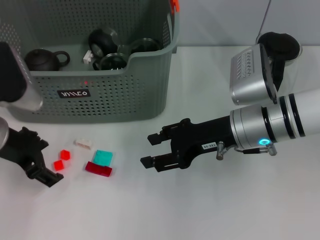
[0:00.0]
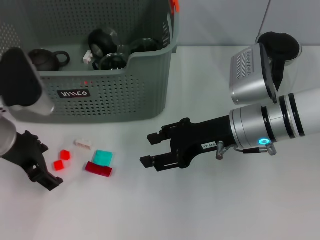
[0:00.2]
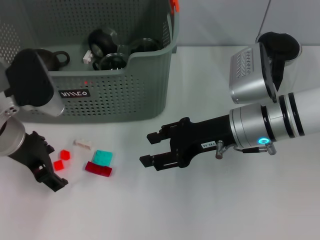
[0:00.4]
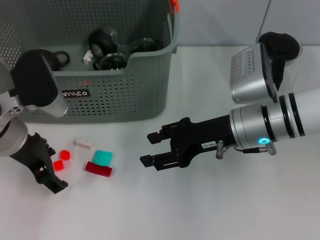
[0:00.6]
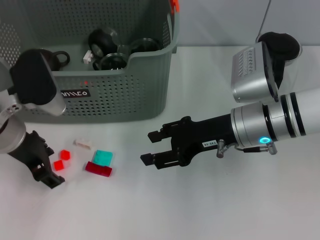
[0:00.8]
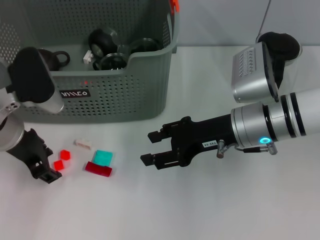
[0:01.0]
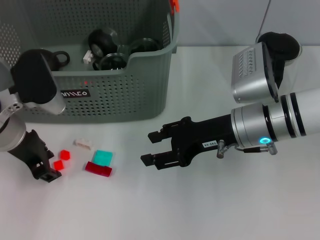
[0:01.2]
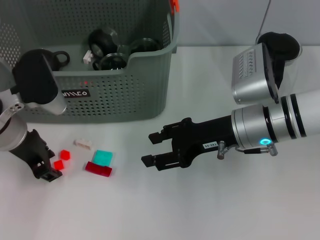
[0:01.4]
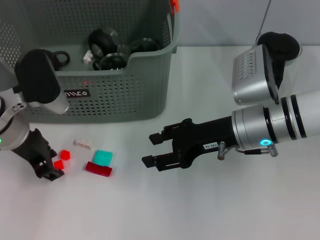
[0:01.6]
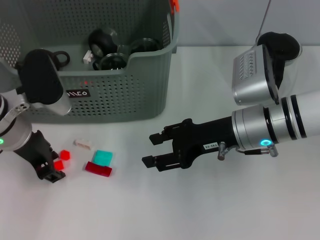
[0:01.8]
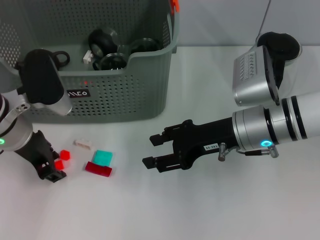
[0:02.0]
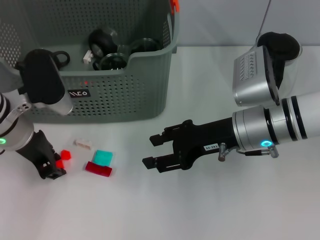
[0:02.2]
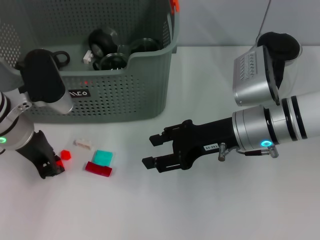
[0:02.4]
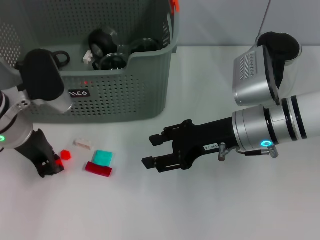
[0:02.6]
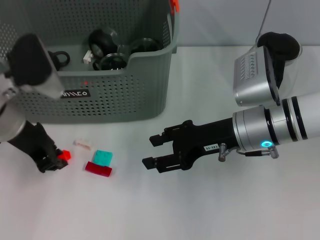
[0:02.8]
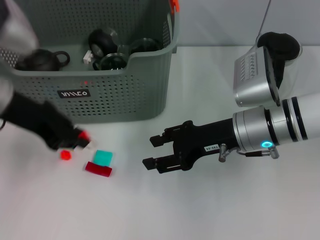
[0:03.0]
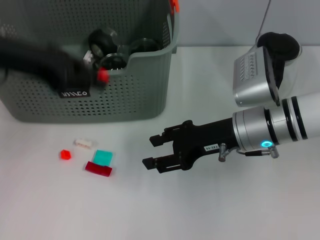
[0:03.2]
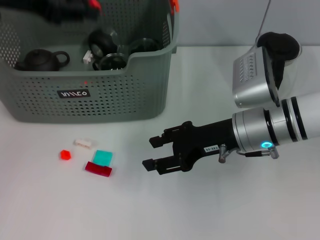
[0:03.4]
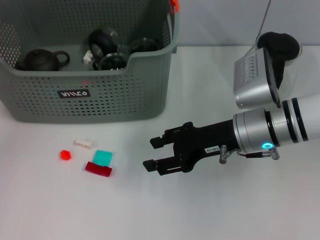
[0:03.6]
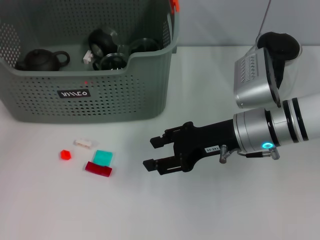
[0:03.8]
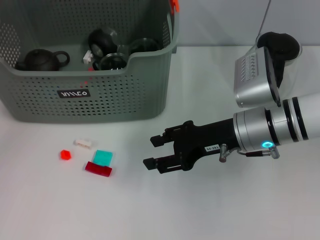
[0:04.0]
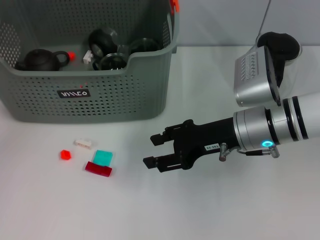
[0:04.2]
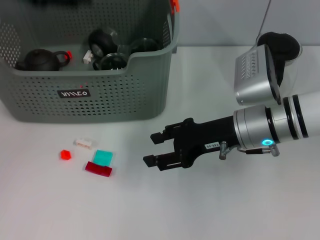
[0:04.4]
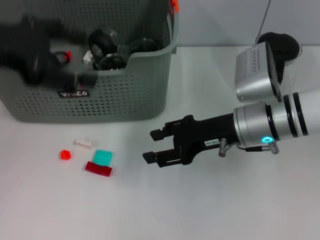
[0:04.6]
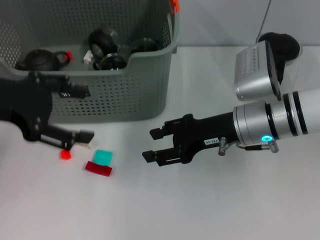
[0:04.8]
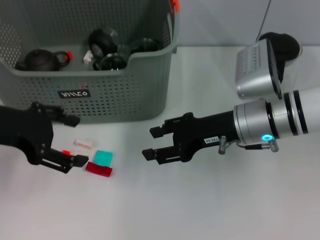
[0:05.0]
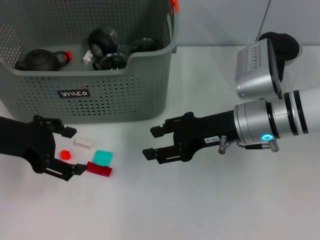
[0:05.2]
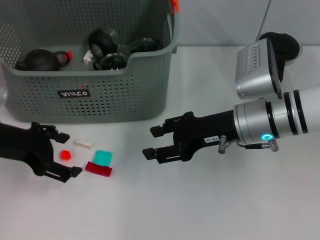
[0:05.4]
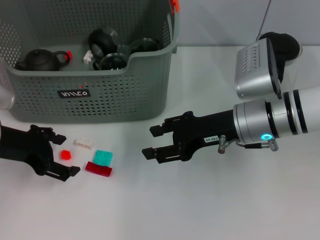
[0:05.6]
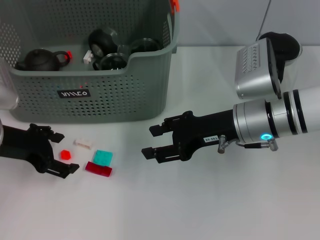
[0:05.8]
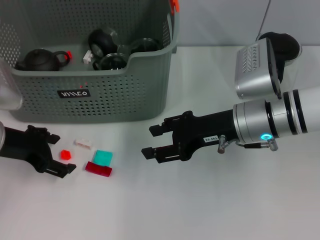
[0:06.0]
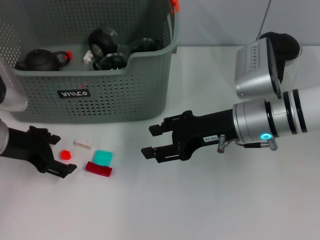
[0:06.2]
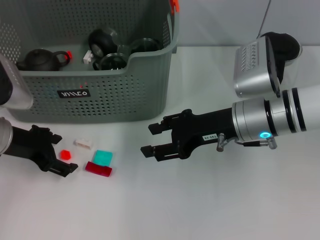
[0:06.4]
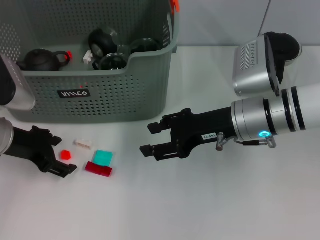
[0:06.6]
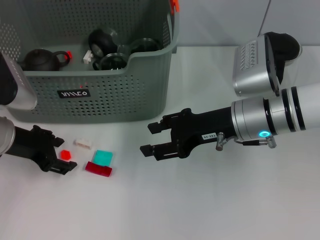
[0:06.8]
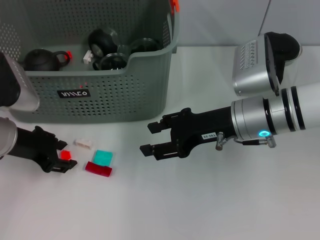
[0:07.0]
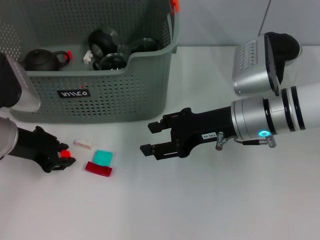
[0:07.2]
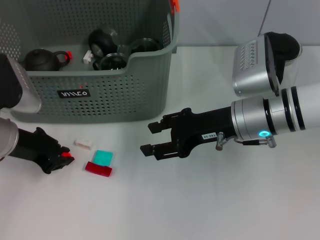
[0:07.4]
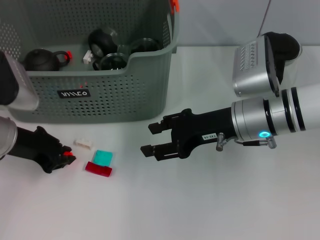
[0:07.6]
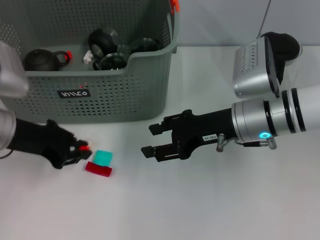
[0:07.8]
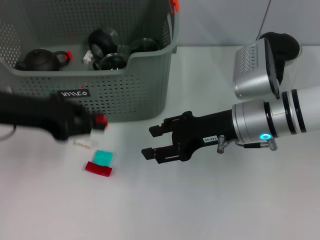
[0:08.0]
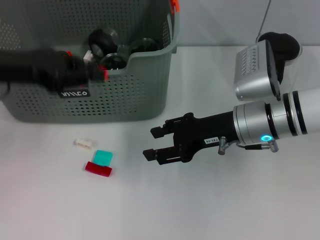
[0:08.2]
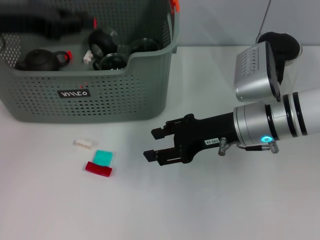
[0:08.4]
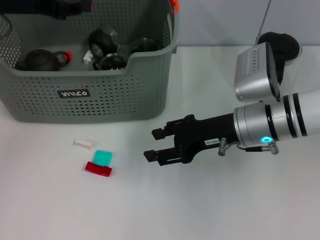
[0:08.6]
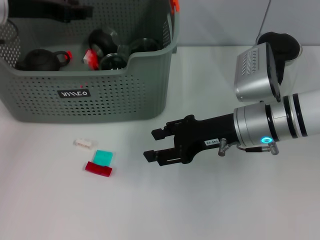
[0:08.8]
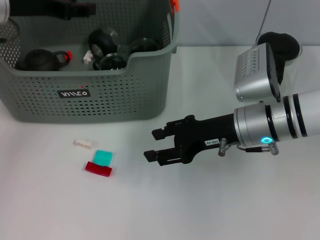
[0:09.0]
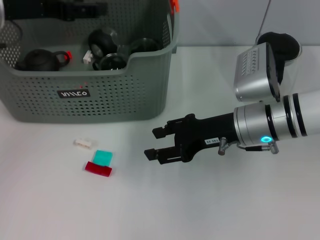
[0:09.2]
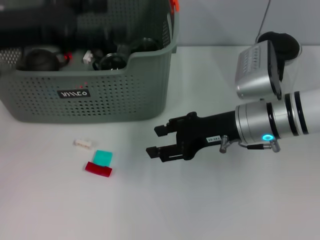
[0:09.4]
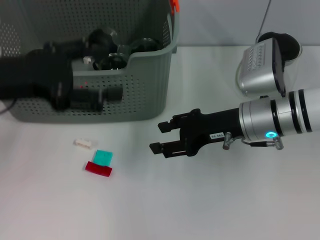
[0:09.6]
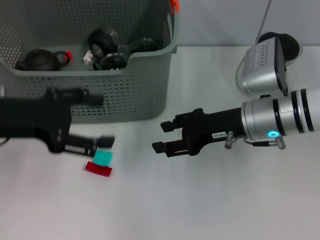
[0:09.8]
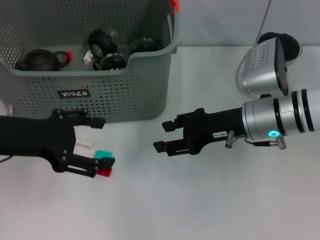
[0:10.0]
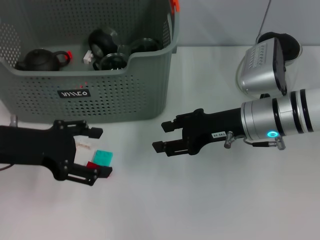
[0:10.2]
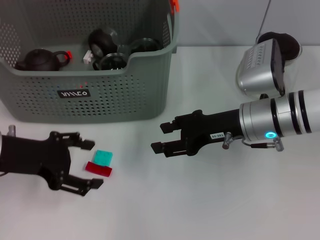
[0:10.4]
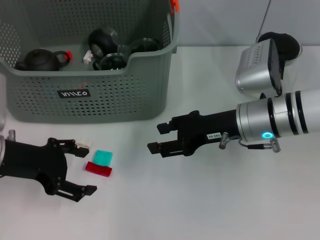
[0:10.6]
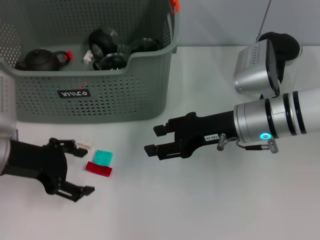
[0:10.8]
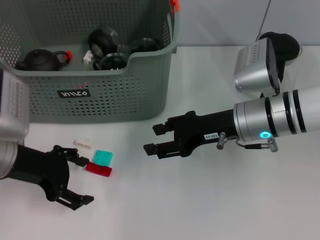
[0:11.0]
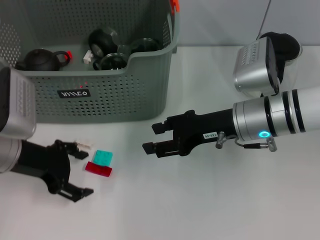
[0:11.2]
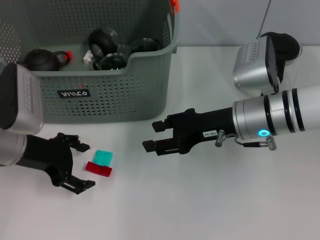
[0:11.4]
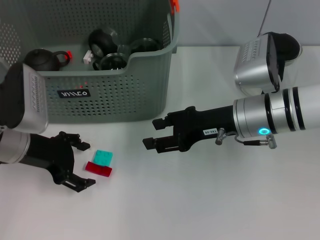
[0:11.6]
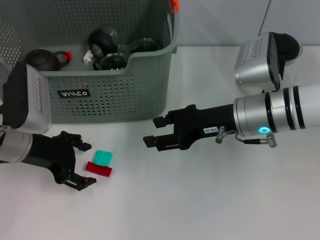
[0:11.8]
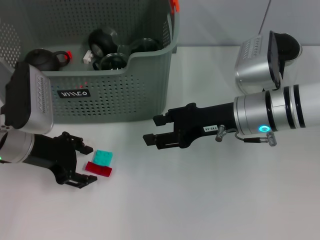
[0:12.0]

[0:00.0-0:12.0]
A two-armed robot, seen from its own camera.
Task of the whole recording: pick up the teacup on the table and place it into the storage bin, pick up the block on the table and place it into the storage bin.
Step, 0:00.0 to 0:02.4: Grasp the orange block with left gripper.
Step, 0:02.6 to 0:04.0: Place the orange block in the storage box with left gripper.
Step, 0:04.4 to 0:07.4: Grasp the orange block with left gripper.
Step, 0:07.6 to 0:09.0: Place the orange block in the storage box with left gripper.
0:00.0 to 0:01.6: The left gripper closes.
0:01.6 to 0:03.0: The left gripper goes some 10 cm upward, and closes.
0:03.0 to 0:04.4: The left gripper shifts about 10 cm upward, and opens up.
0:04.4 to 0:06.0: The left gripper shifts roughly 15 cm downward.
0:06.0 to 0:07.6: The left gripper closes.
0:07.6 to 0:09.0: The left gripper travels upward and forward by roughly 15 cm.
0:09.0 to 0:10.4: The left gripper heads backward and downward, covering about 15 cm, and opens its fingers.
0:10.4 to 0:12.0: The left gripper ends up about 5 cm from where it was.

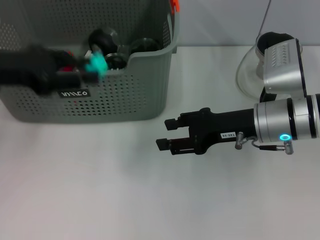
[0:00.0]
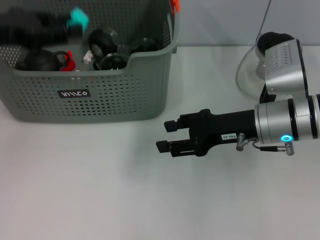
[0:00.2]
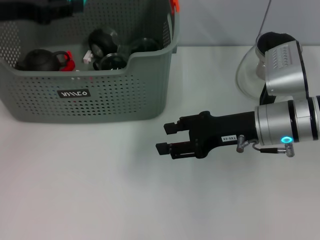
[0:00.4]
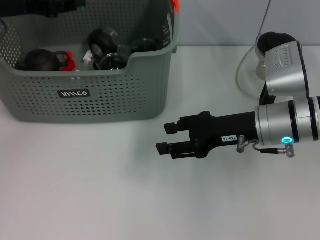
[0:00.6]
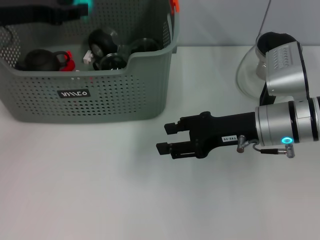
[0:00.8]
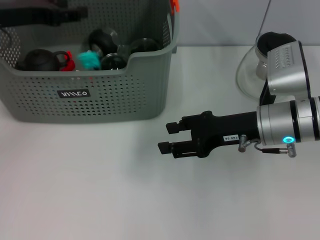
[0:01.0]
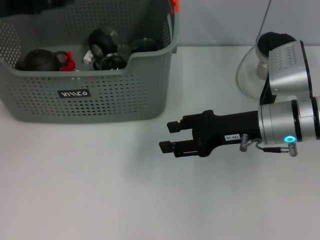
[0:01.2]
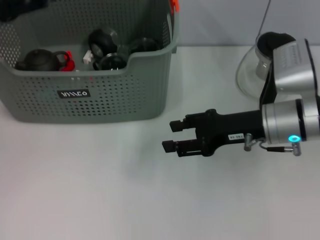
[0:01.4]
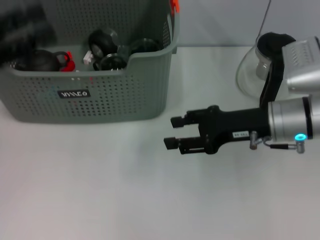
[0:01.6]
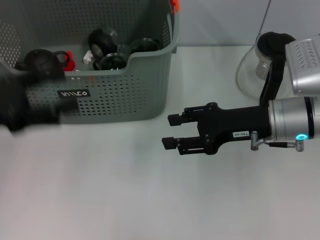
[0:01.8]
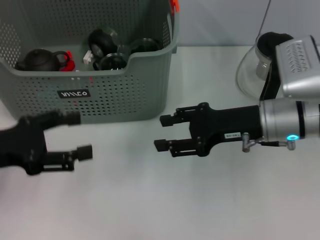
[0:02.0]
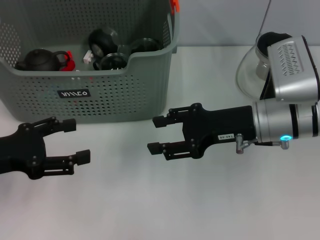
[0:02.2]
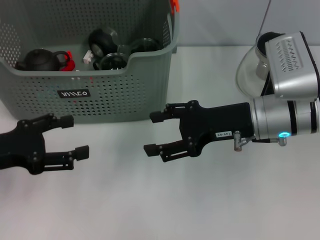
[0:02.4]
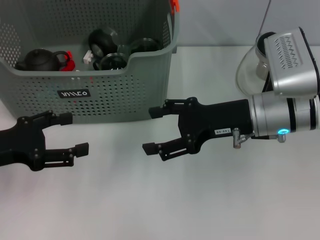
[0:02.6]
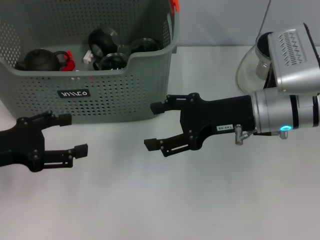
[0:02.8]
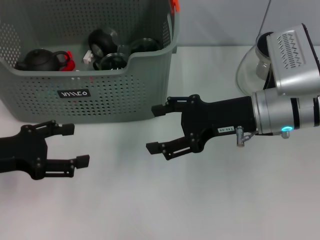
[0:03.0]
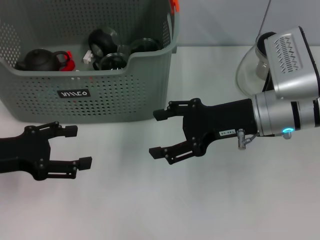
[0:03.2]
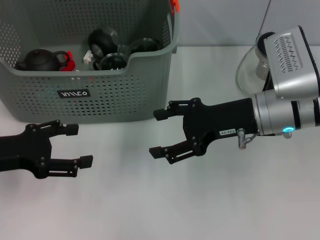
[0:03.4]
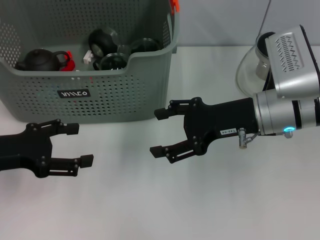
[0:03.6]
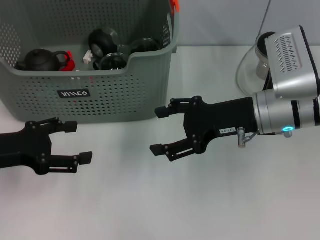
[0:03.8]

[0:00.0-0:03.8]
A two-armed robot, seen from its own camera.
Task of the whole recording: pick up the teacup on the table and place it into the storage bin, pick up the block on the table and place it into the storage bin.
Step, 0:00.0 to 0:01.0: Place the light blue block in the storage box with left gripper.
0:00.0 to 0:01.2: The left gripper shifts approximately 5 cm forward.
0:01.2 to 0:02.6: The left gripper shifts approximately 15 cm backward and downward.
0:02.6 to 0:03.8: The grippers move only a little.

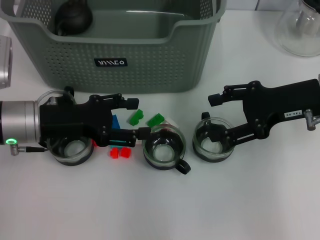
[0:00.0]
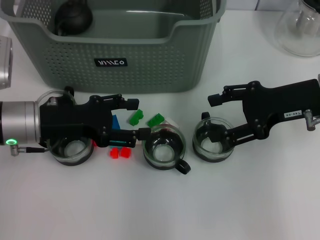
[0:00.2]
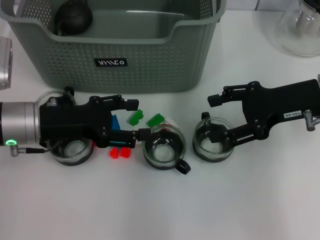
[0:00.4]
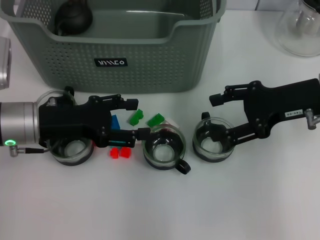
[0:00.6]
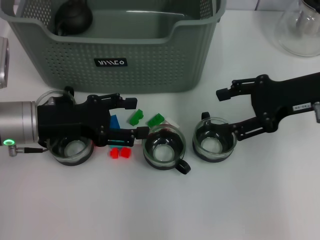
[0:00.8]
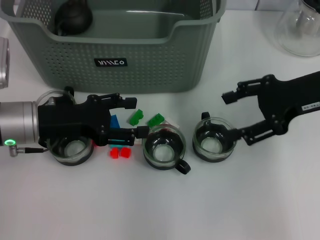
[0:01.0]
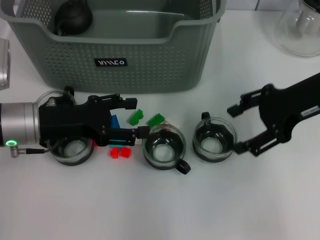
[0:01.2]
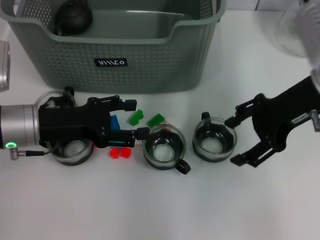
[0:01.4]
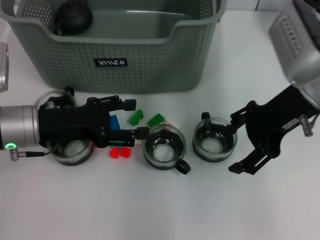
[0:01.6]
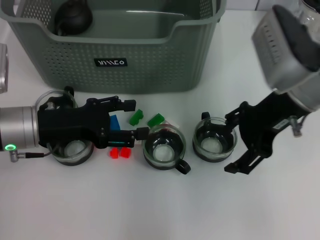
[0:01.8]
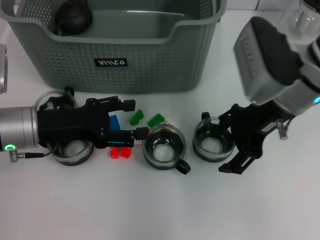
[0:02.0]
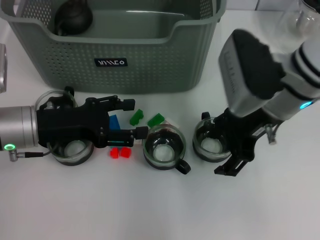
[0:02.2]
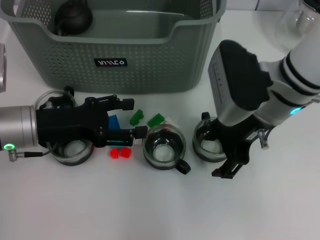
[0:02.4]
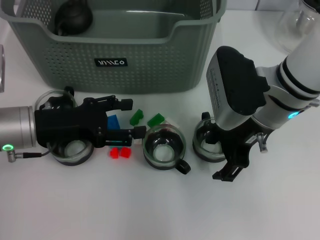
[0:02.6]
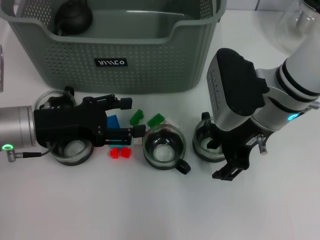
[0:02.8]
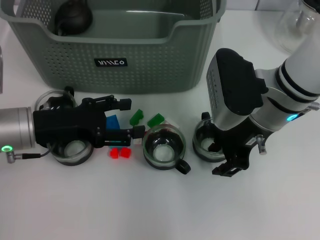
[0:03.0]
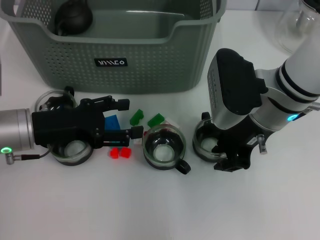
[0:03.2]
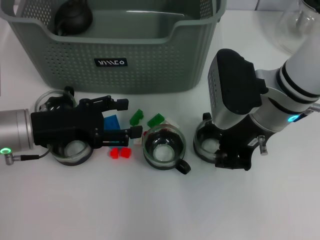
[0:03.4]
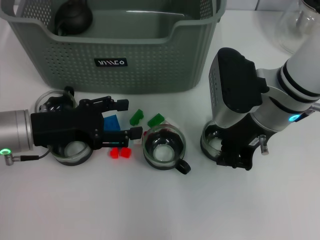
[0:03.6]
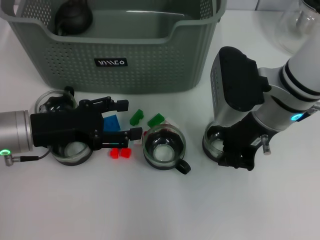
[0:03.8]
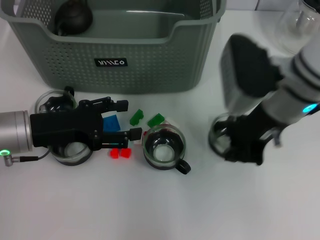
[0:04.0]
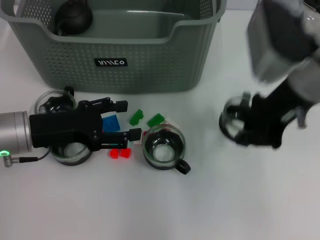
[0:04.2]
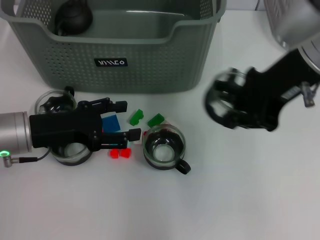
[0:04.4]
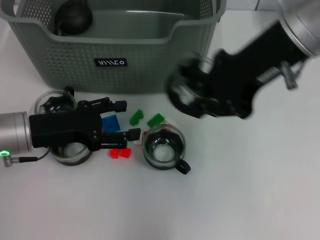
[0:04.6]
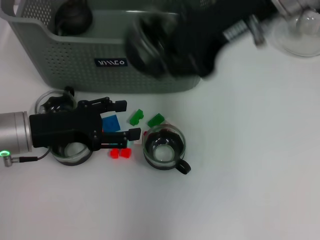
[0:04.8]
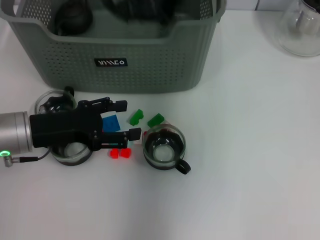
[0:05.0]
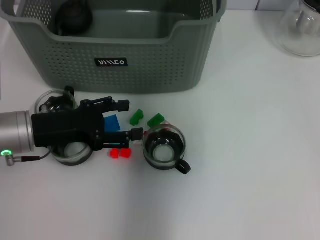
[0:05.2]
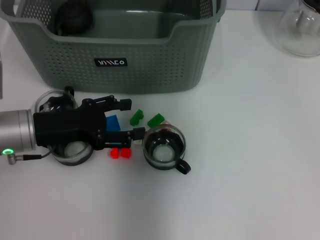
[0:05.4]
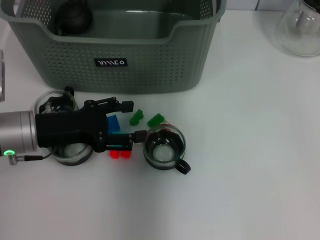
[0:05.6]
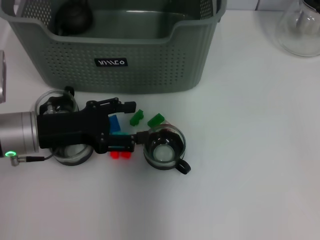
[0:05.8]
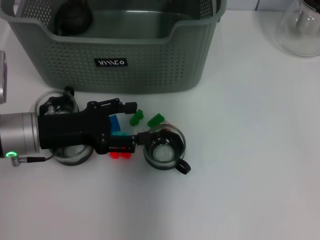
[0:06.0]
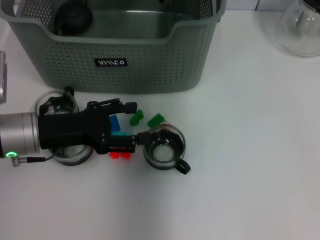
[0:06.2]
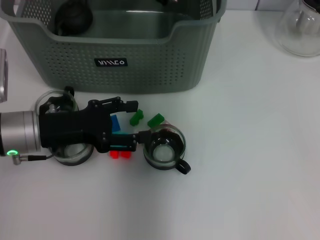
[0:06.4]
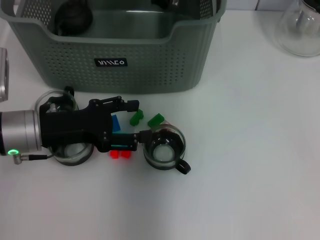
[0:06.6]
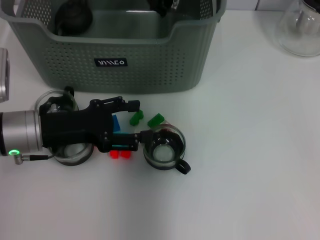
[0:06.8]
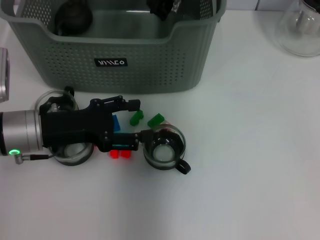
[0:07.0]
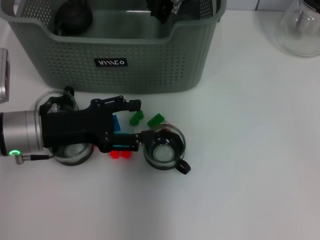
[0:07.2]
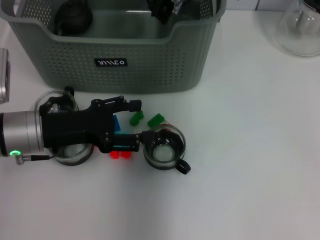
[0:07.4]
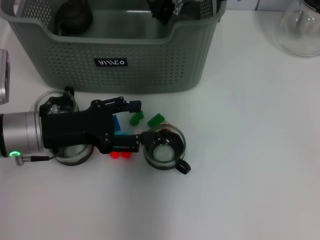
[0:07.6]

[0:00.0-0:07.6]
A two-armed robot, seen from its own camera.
Task of the whole recording: pick up the teacup on the table and place it into the storage bin, pick up the block on the table and place it into the storage bin.
Step, 0:00.0 to 0:03.4: Grasp the cup with right gripper.
0:00.0 to 0:01.6: The right gripper shifts approximately 5 cm to the left.
0:01.6 to 0:03.0: The right gripper heads to the left, covering about 5 cm.
0:03.0 to 0:04.6: The right gripper is displaced upward by roughly 15 cm, and closes its fingers.
0:04.6 to 0:06.0: The right gripper shifts roughly 20 cm forward, to the left and downward.
0:06.0 to 0:07.6: The grippers move only a little.
